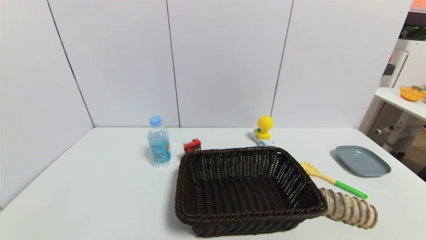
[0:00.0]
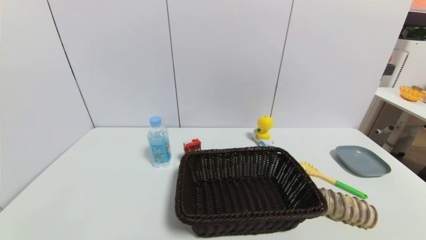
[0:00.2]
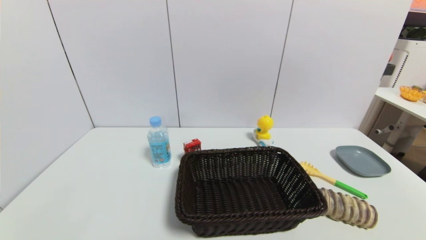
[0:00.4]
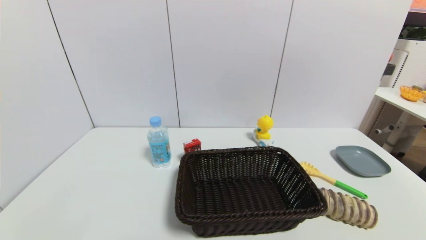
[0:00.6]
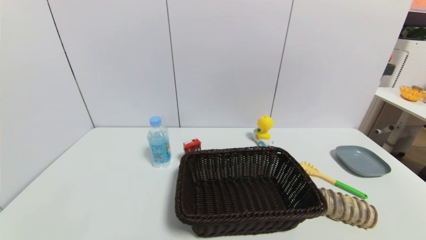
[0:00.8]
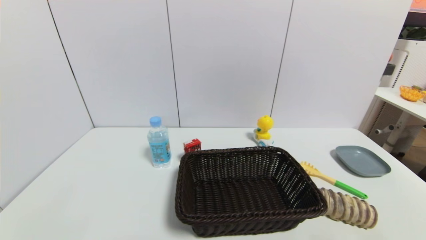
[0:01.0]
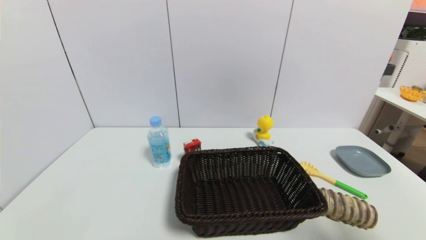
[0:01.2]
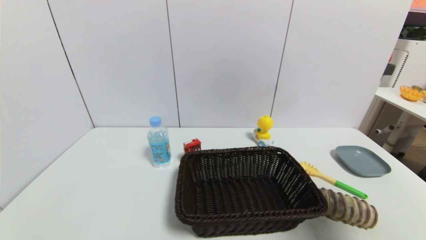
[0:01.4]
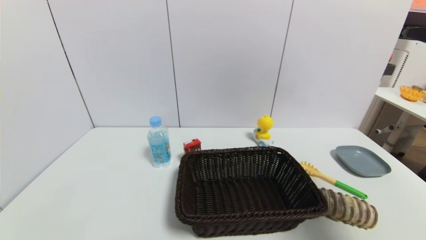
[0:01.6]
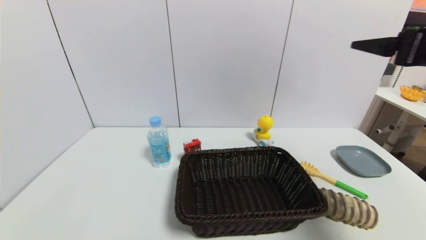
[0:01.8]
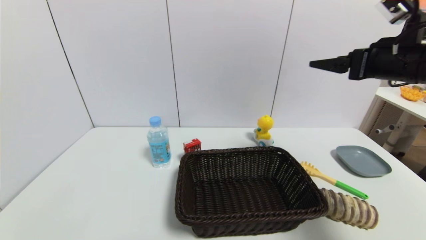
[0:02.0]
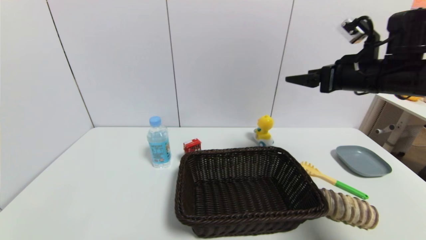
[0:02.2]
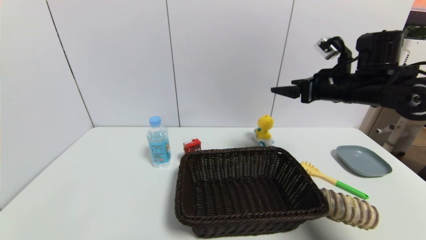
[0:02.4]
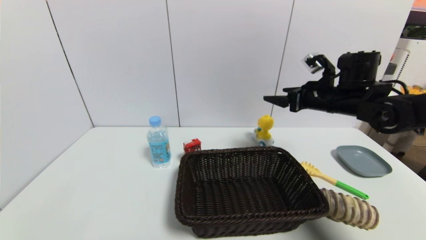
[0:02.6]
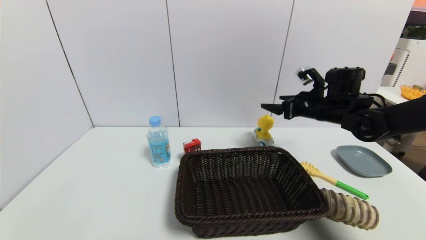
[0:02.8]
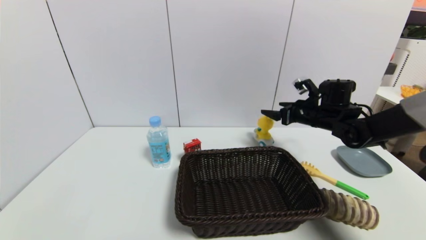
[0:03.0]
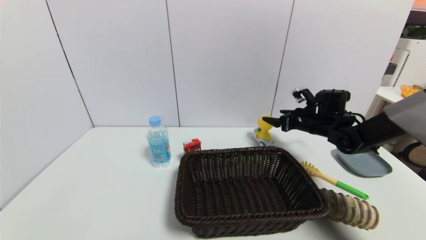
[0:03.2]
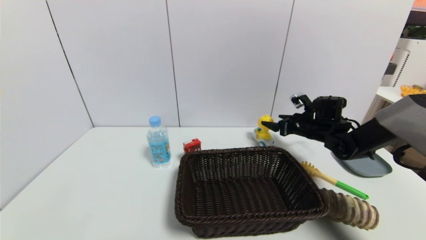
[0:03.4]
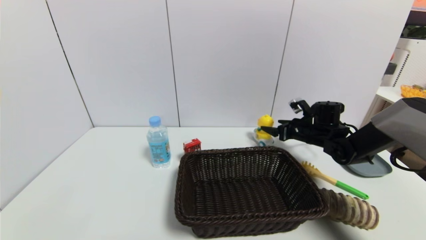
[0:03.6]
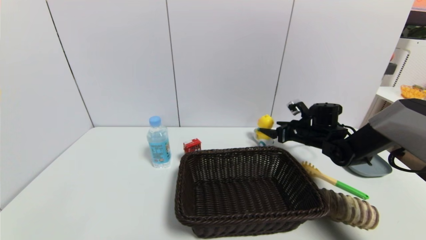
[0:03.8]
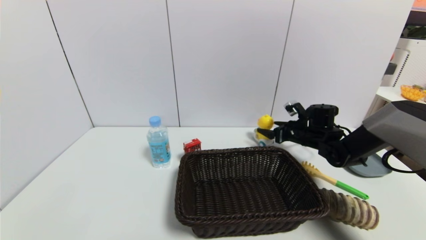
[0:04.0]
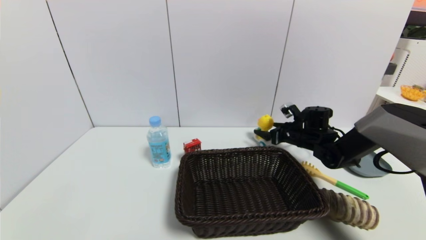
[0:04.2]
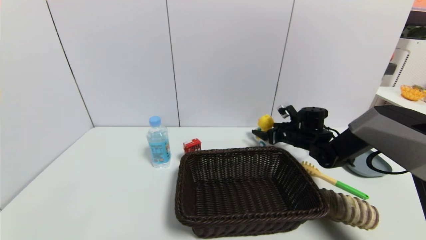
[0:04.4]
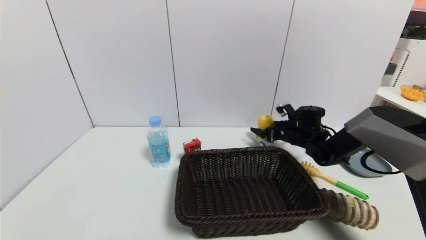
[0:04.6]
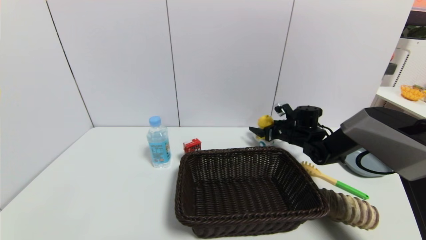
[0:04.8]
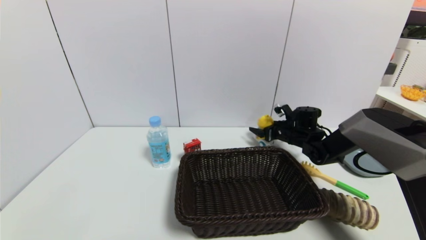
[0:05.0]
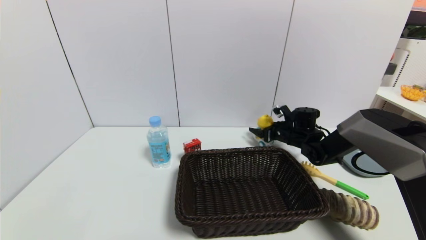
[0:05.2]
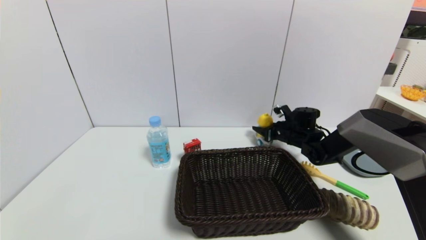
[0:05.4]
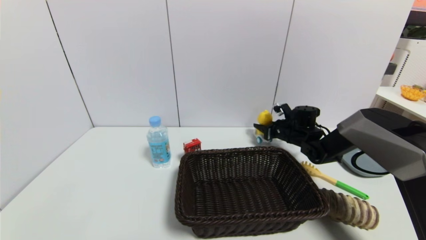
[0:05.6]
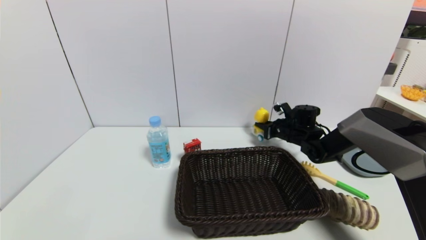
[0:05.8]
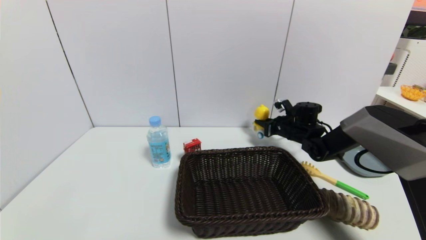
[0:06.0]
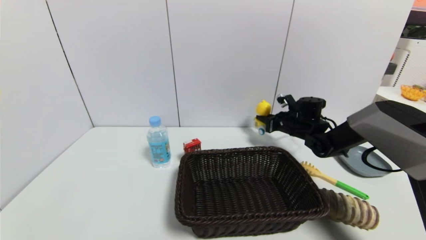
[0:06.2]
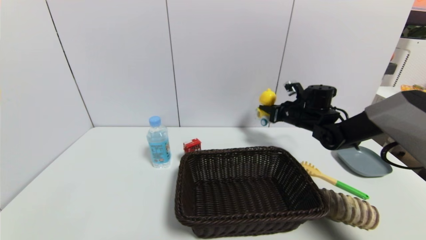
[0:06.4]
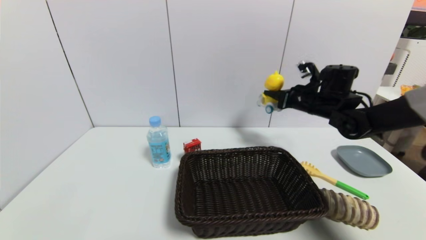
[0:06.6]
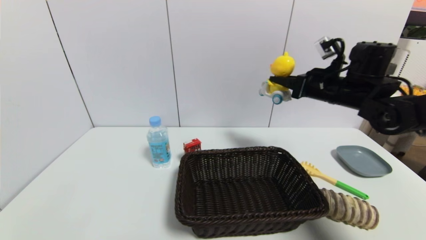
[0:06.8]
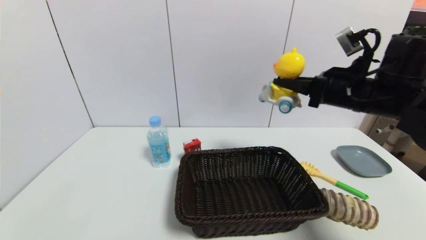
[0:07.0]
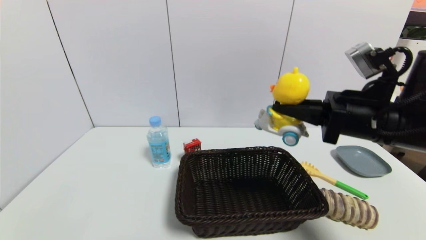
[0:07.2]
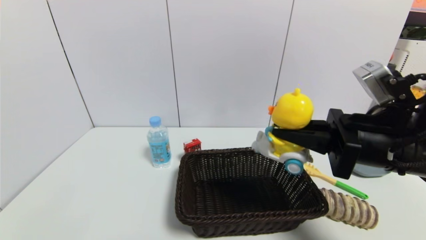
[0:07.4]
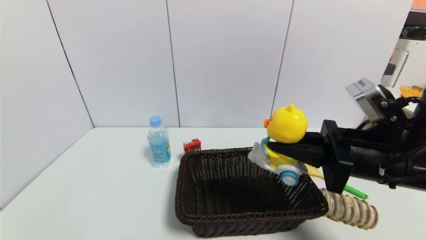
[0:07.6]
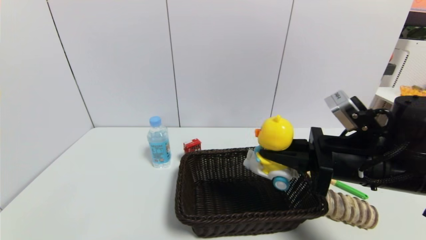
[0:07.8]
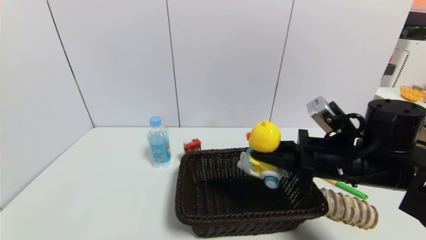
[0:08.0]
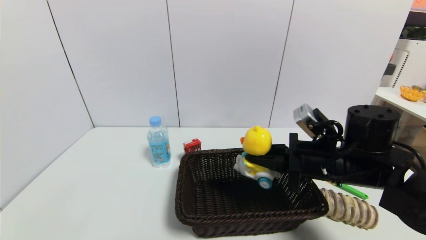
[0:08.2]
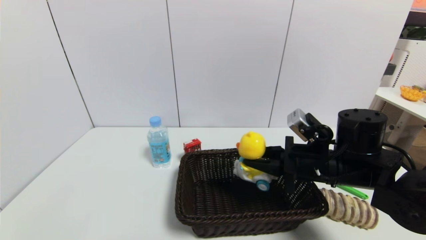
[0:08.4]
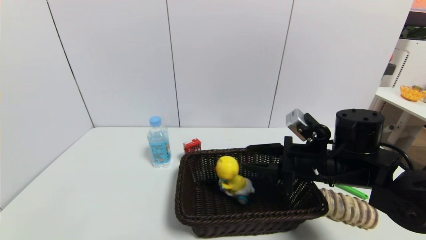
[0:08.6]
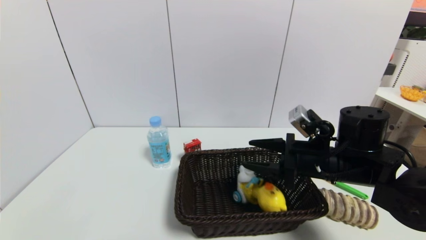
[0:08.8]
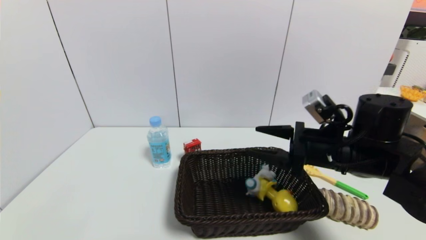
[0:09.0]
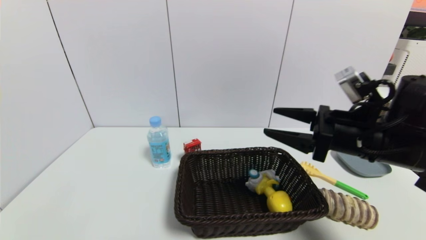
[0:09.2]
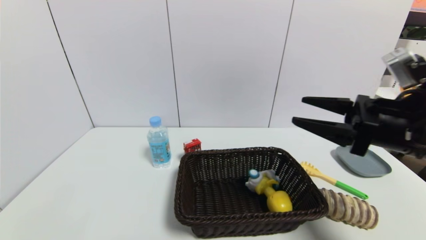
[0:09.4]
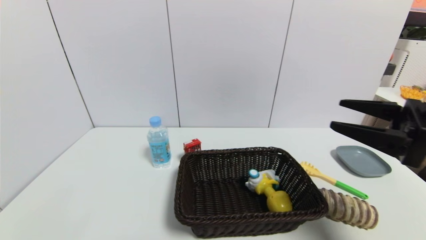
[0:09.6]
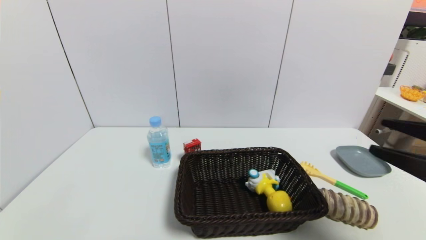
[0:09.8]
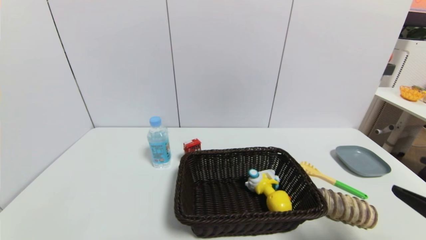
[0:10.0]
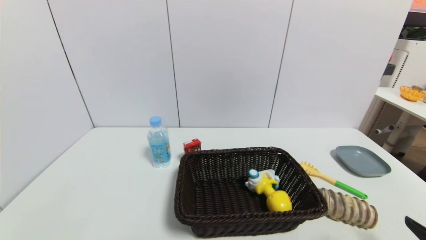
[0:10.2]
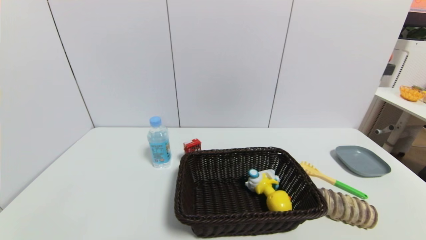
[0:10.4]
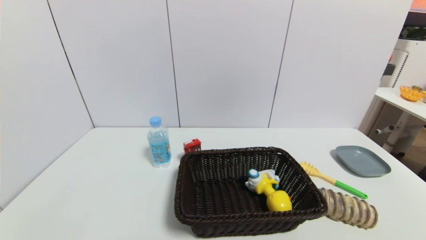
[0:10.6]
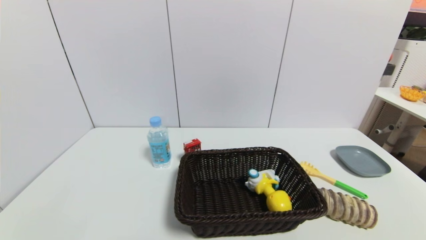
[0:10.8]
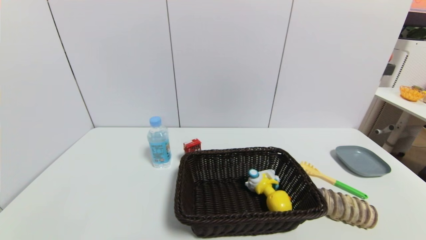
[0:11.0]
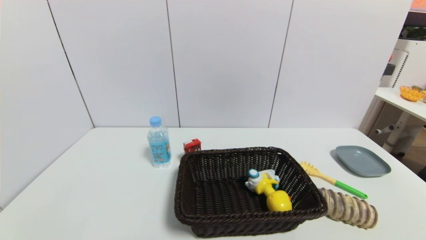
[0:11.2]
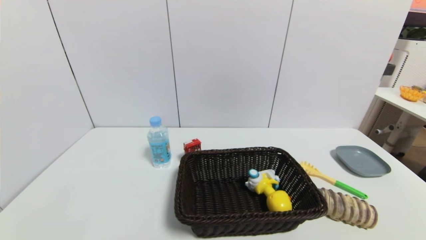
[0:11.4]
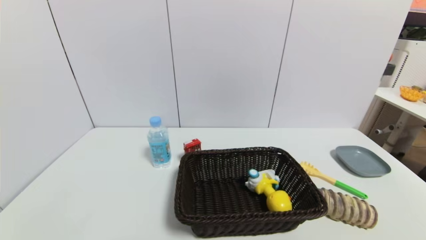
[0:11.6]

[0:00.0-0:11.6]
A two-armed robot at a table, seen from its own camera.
Task of the whole recording: use a gripper to pick the target object and place on the brown basket.
Step, 0:00.0 to 0:05.8: Grasp the duck toy with the right gripper.
Step, 0:06.0 to 0:09.2: Place the duck toy into the basket with the right gripper.
0:00.0 to 0:01.4: The right gripper goes roughly 30 cm upward and forward.
0:01.4 to 0:02.8: The right gripper shifts some 35 cm forward and downward.
0:02.8 to 0:04.4: The right gripper goes roughly 10 cm downward.
0:04.4 to 0:05.8: The right gripper closes its fingers.
0:05.8 to 0:07.2: The right gripper is displaced backward and upward by approximately 30 cm.
0:07.2 to 0:08.8: The right gripper heads downward, covering roughly 10 cm, and opens its fingers.
0:08.8 to 0:10.2: The right gripper heads backward and to the right, covering about 25 cm, and opens its fingers.
